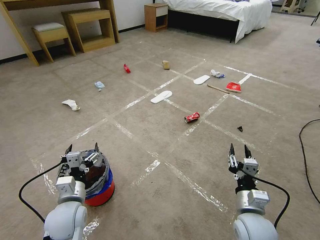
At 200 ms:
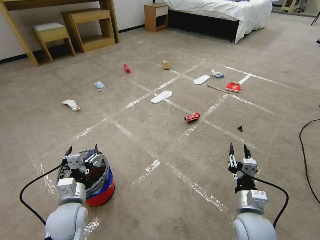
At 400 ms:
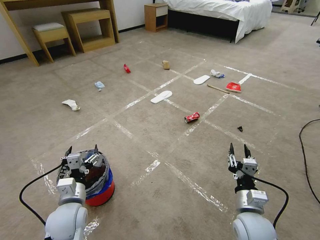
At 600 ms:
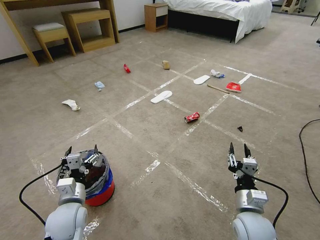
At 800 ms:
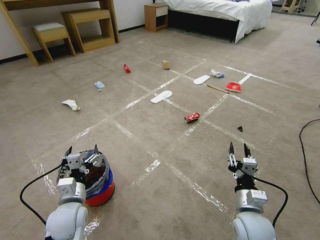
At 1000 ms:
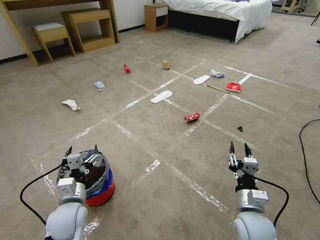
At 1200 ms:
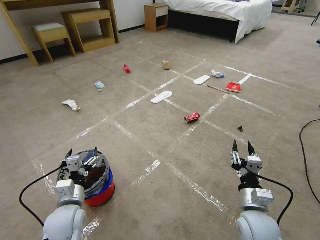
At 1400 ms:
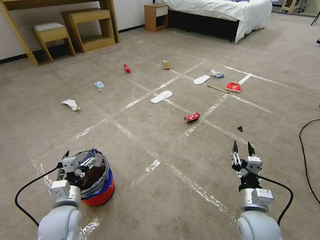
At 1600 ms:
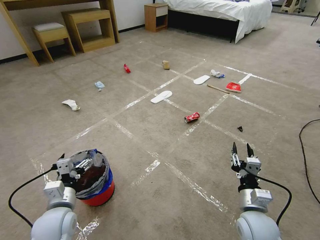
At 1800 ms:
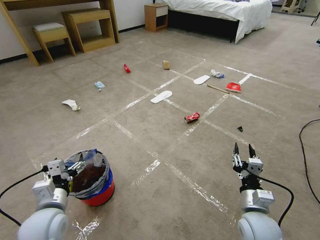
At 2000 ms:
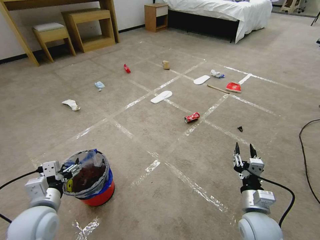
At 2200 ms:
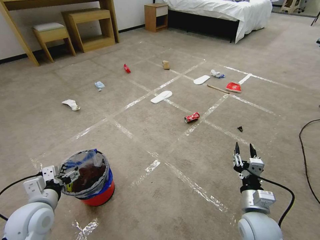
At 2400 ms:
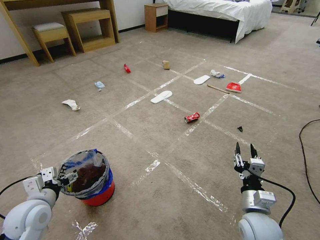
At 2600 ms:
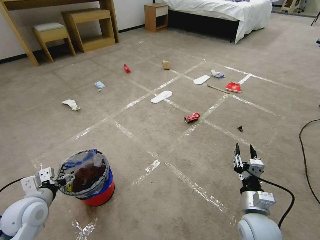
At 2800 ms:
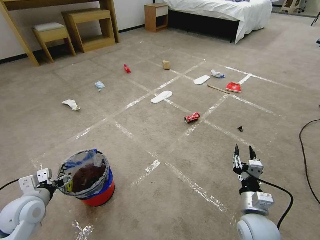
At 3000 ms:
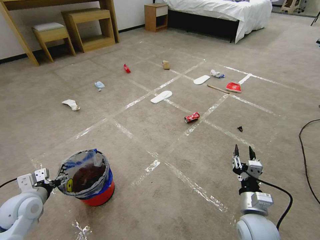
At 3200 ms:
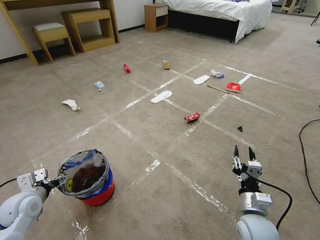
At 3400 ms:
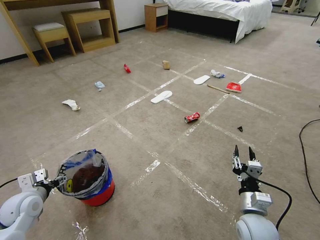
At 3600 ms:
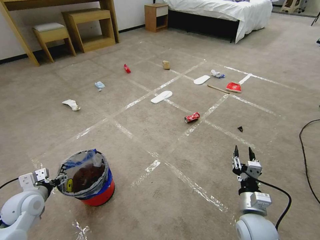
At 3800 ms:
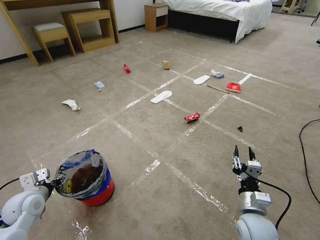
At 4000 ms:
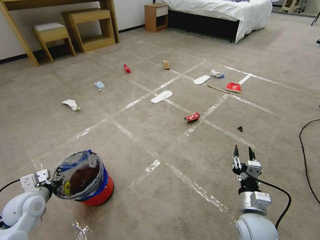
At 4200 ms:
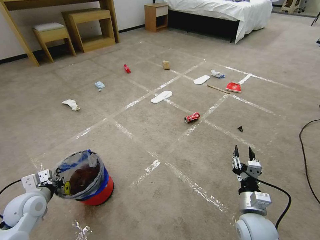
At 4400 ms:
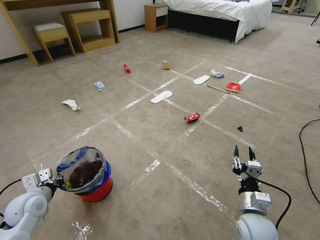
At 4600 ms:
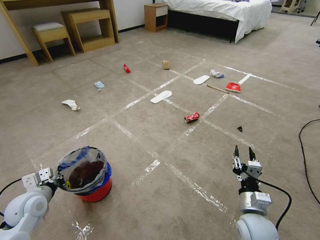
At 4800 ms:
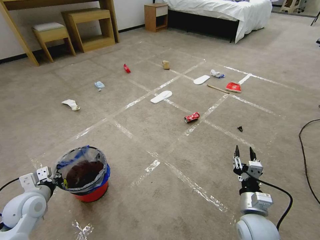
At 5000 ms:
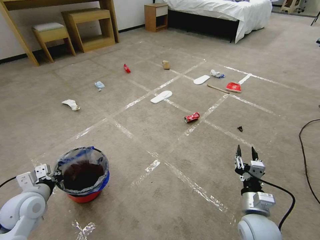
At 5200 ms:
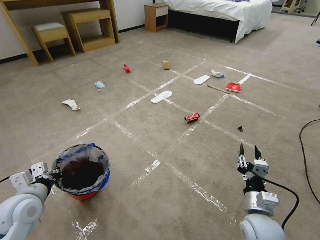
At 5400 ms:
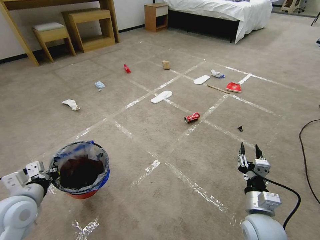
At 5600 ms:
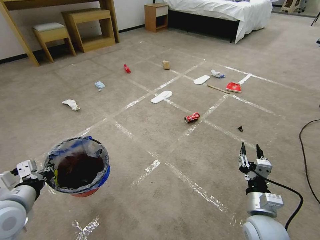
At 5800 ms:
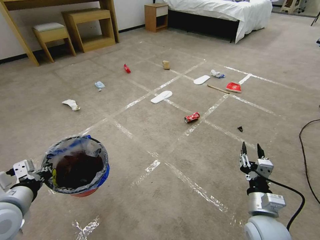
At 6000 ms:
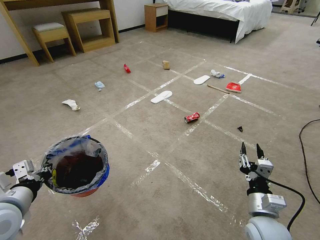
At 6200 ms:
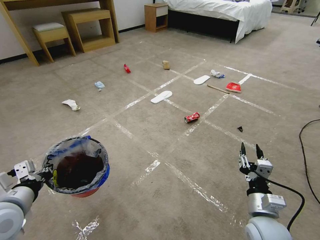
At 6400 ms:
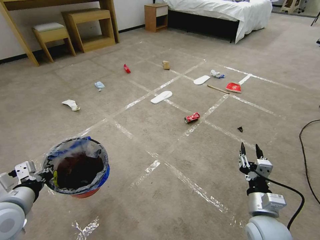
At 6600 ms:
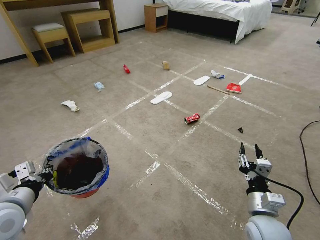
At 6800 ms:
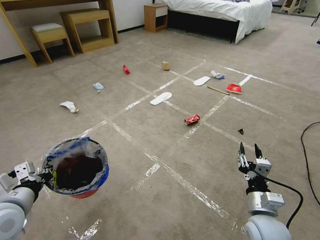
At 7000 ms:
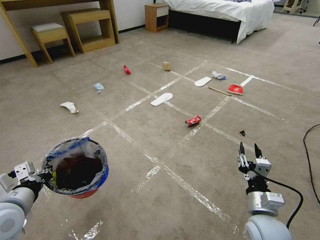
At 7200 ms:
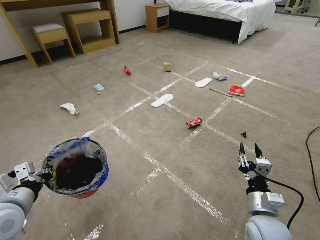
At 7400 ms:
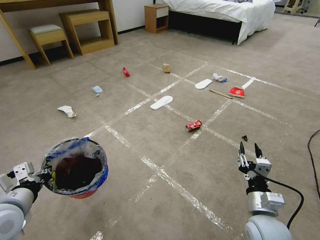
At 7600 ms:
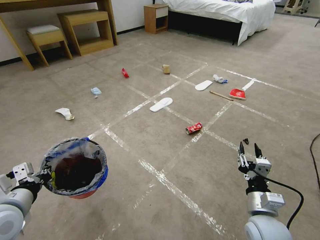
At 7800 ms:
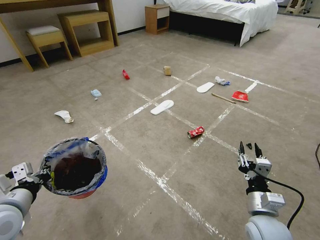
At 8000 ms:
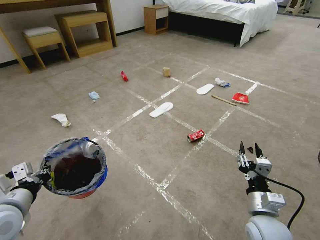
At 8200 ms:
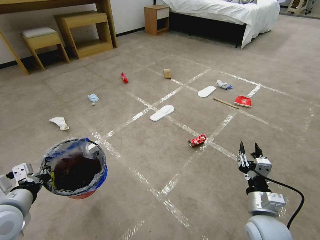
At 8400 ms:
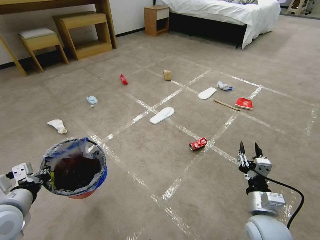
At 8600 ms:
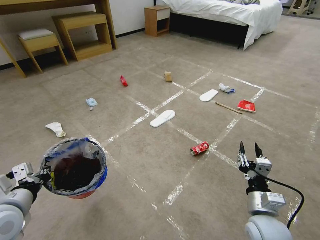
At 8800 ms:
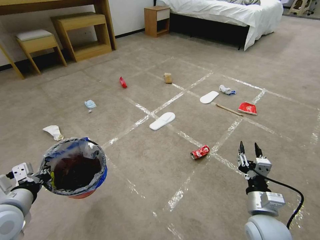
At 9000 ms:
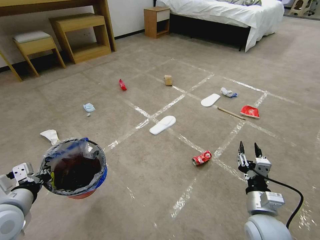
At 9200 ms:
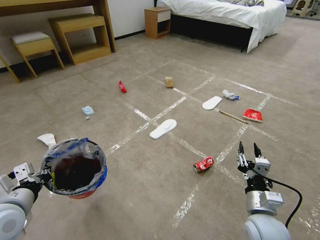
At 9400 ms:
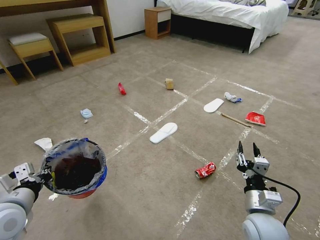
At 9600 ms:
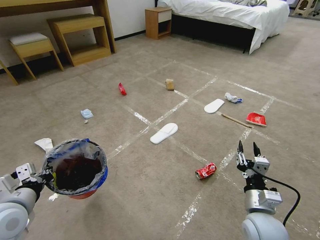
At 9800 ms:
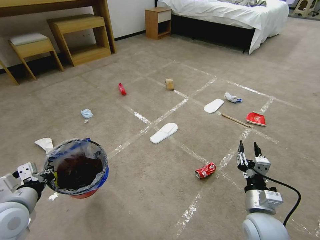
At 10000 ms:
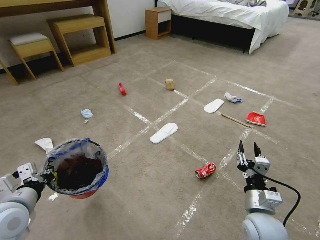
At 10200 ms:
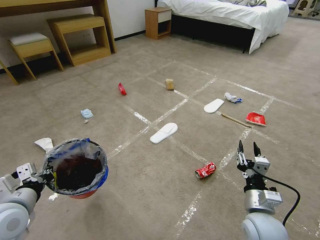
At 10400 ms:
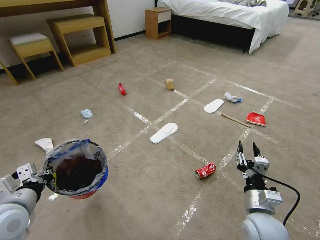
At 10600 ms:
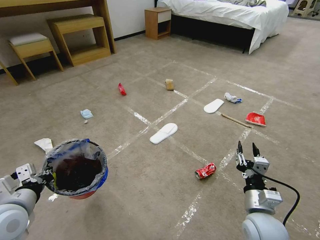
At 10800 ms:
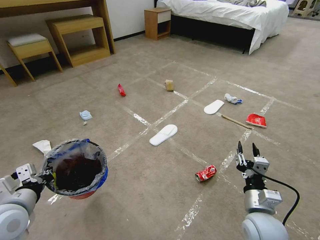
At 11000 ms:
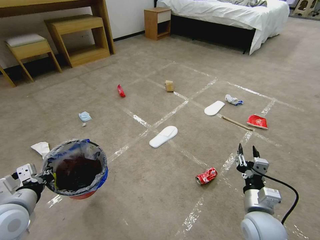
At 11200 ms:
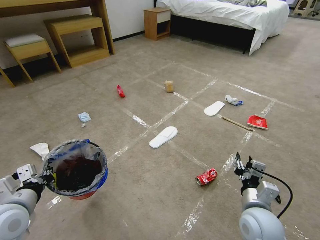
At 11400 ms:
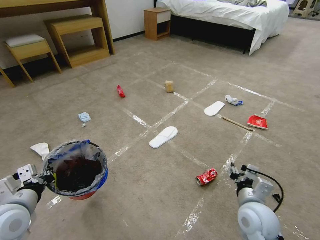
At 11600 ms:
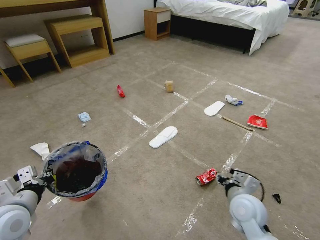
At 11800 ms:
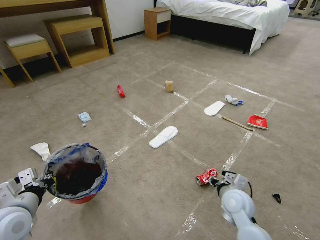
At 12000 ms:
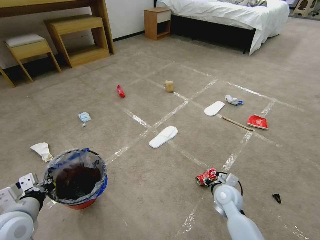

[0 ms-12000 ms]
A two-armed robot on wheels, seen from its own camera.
Task of the whole recording: Pick up the trash bin and place the garbage on the floor into it.
1600 ms to 3000 ms: The left gripper goes roughly 10 cm to the left.
3000 ms to 4400 ms: The left gripper closes its fingers.
4400 ms to 6000 ms: The left gripper goes some 15 cm upward and backward.
6000 ms to 7600 ms: Both grippers stay about where they are.
9000 ms to 10400 ms: The two grippers keep their place.
10400 ms to 12000 ms: The right gripper moves forward and downward, roughly 15 cm.

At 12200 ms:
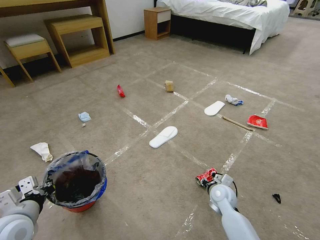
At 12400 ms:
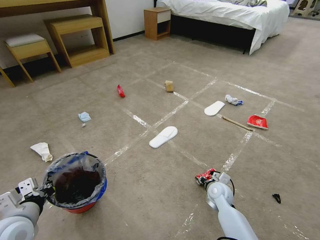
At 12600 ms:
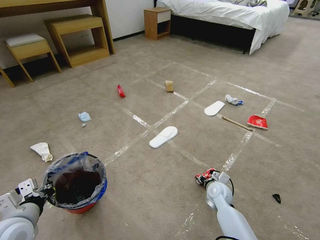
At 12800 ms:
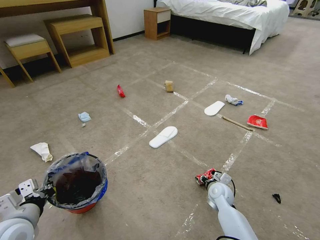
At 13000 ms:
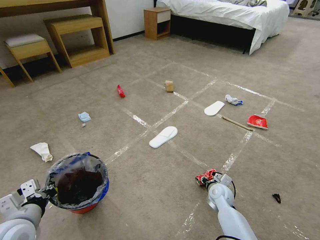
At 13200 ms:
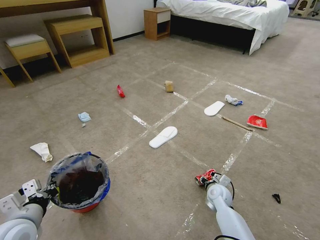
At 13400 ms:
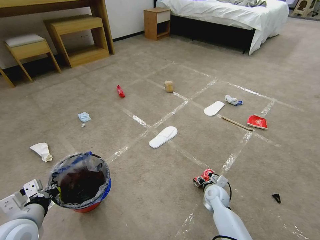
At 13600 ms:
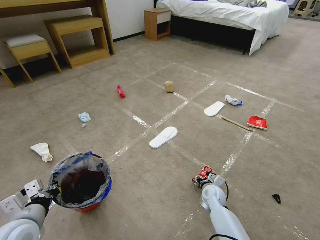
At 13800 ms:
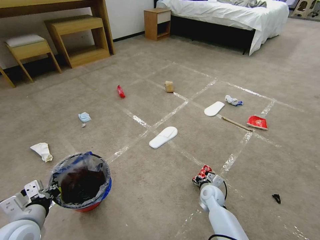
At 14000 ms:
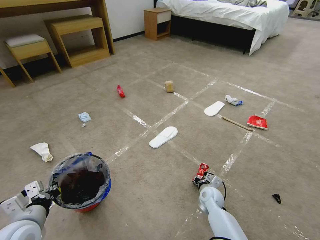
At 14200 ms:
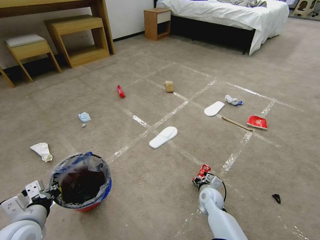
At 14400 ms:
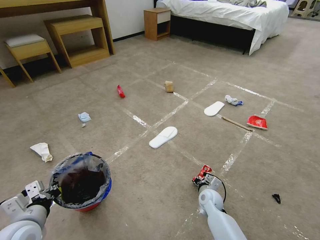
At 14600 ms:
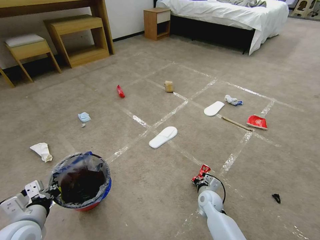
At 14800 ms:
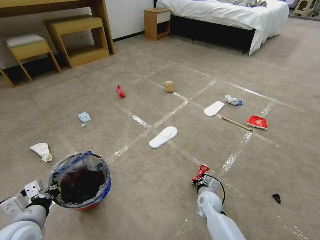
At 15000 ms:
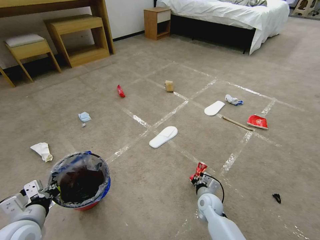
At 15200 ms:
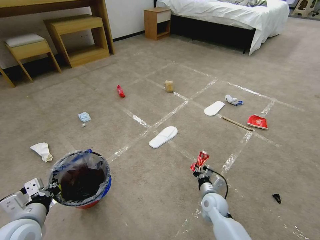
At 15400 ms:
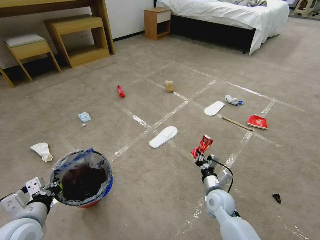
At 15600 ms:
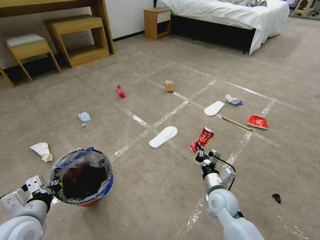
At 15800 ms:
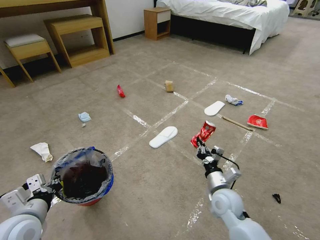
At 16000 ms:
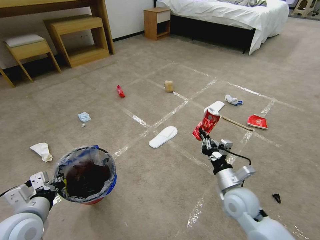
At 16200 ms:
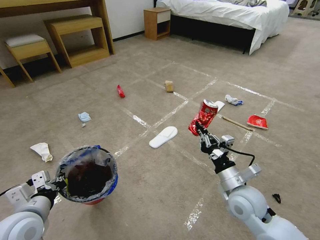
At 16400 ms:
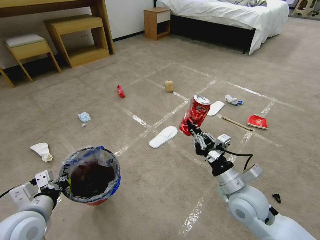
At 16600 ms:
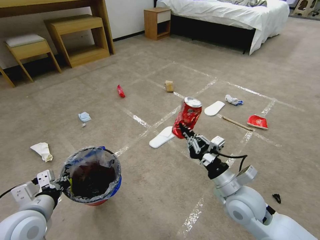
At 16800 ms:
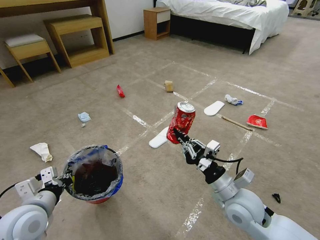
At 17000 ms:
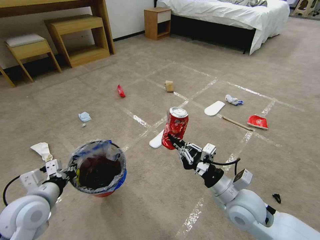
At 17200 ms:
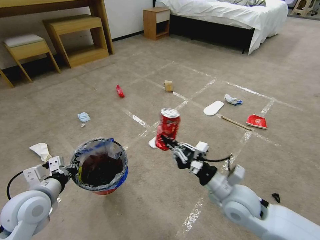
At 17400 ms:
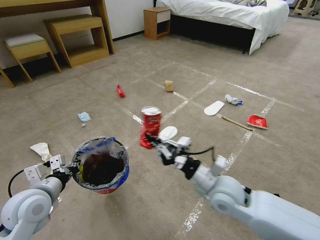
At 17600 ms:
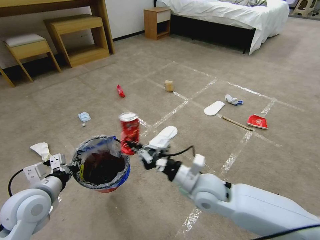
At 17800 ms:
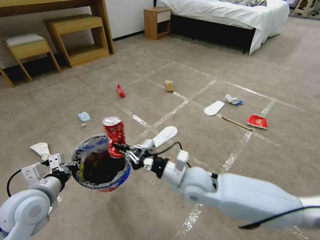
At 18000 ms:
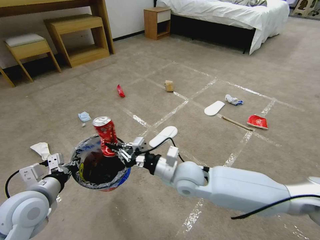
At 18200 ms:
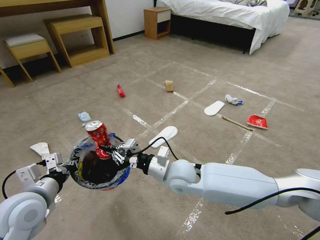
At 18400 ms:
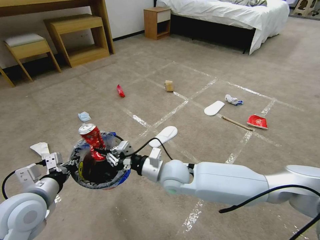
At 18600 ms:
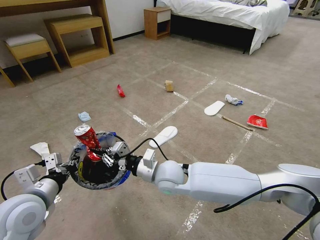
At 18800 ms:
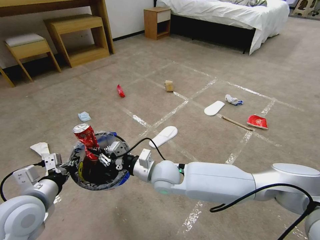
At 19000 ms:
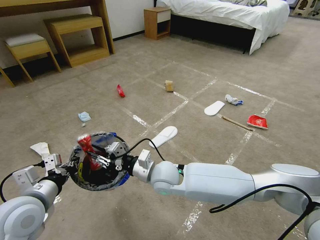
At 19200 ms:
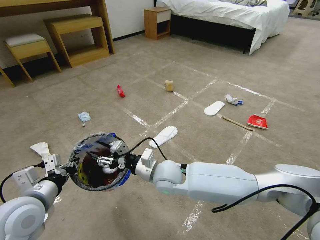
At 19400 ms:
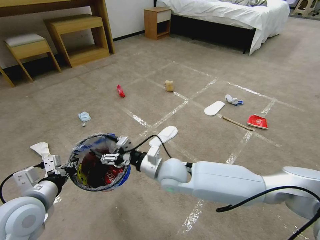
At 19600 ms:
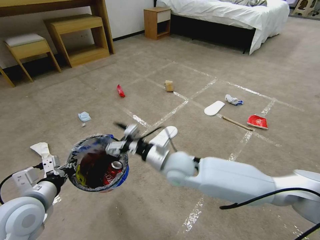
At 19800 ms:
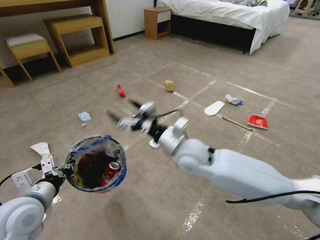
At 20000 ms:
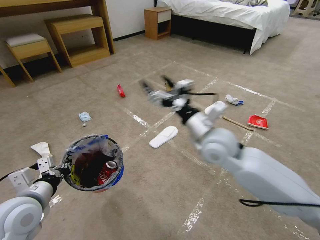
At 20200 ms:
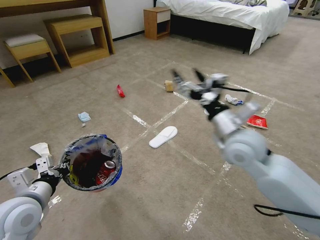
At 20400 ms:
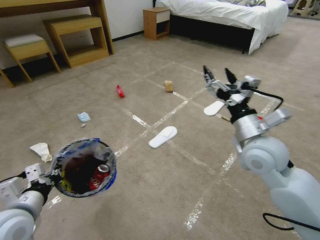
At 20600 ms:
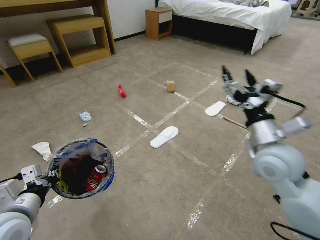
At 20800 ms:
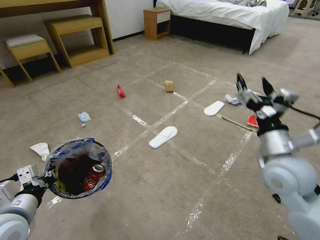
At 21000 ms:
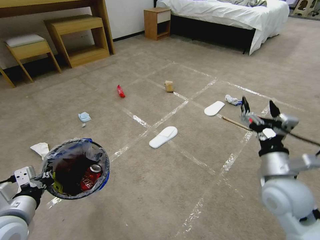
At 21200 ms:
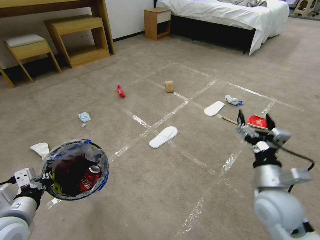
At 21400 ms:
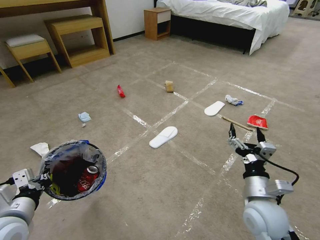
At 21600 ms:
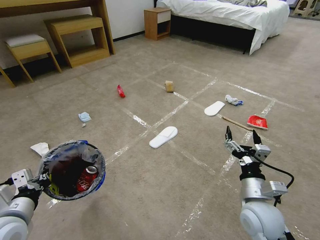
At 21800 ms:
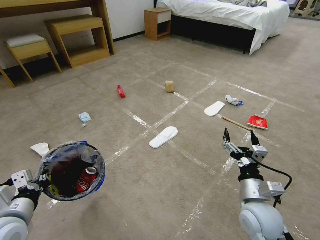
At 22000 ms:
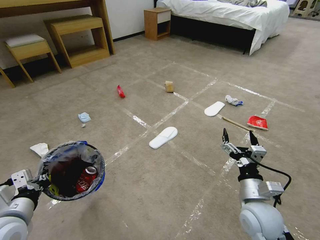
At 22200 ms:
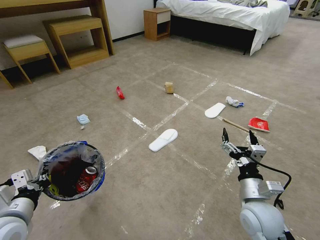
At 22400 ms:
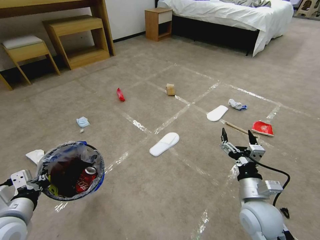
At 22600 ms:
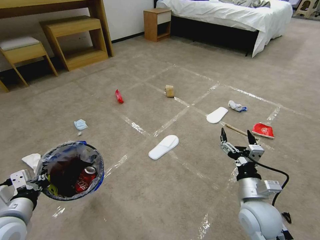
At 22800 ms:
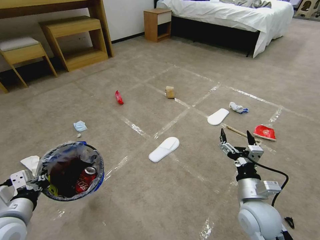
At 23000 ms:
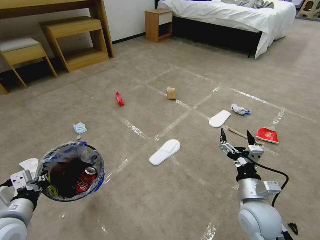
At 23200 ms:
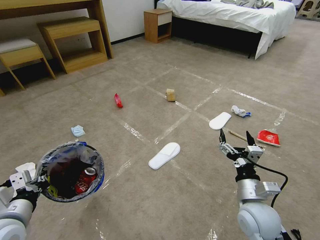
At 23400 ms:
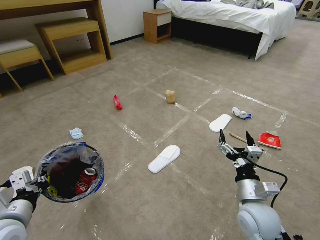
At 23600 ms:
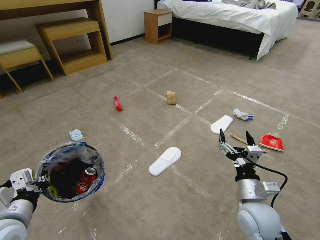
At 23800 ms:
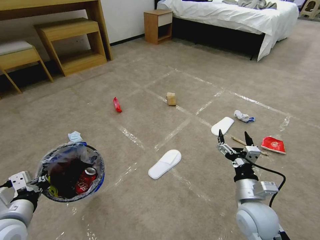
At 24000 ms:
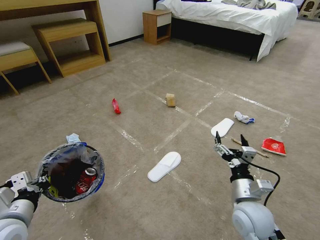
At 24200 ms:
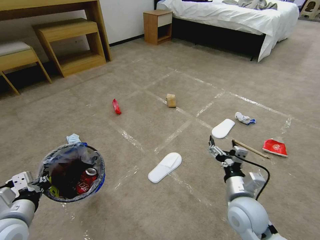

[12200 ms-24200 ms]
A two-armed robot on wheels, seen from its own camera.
Task of the whole recording: Pick up the trash bin and place the garbage on the floor into it.
12200 ms to 13800 ms: The right gripper shifts approximately 5 cm downward.
13800 ms to 15200 ms: The right gripper closes its fingers.
15200 ms to 16600 ms: The right gripper is displaced upward by some 20 cm.
16600 ms to 18200 ms: The right gripper shifts about 20 cm to the left and forward.
18200 ms to 19800 ms: The right gripper travels upward by about 10 cm, and opens.
19800 ms to 21200 ms: The right gripper moves to the right and backward, about 25 cm.
21200 ms to 22600 ms: The right gripper ends up about 5 cm from where it was.
